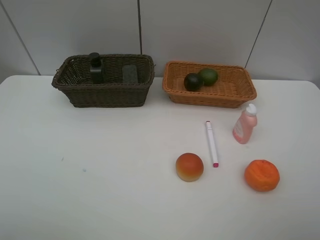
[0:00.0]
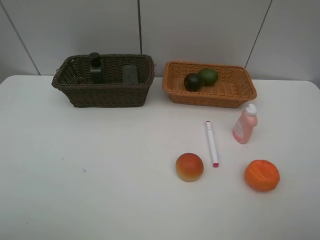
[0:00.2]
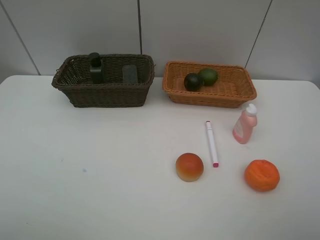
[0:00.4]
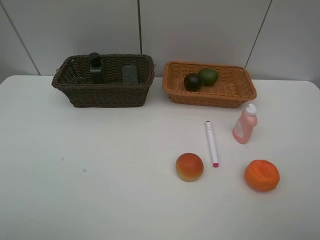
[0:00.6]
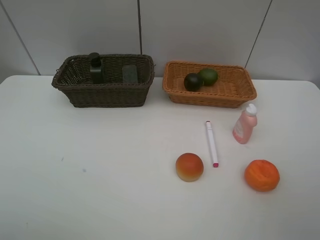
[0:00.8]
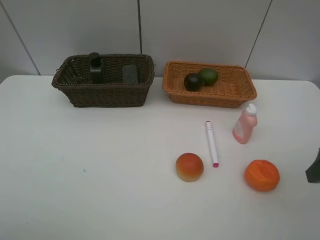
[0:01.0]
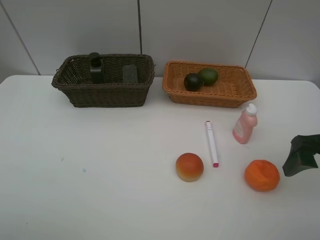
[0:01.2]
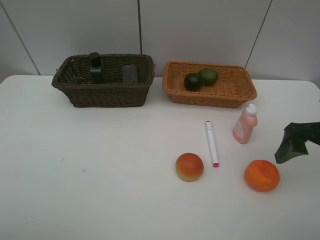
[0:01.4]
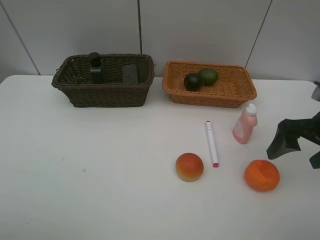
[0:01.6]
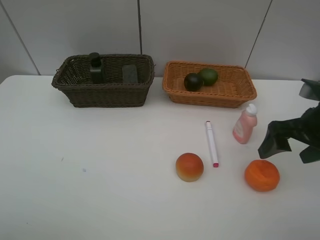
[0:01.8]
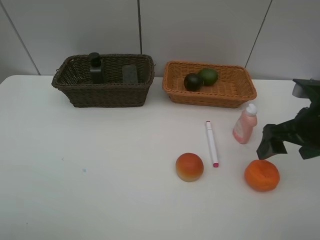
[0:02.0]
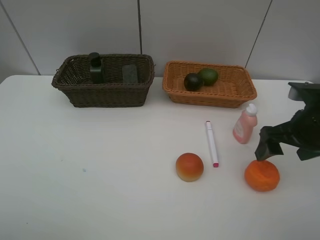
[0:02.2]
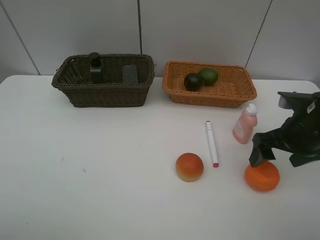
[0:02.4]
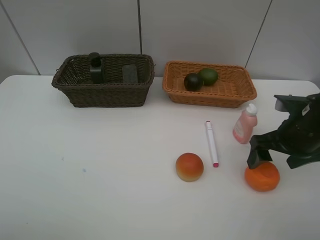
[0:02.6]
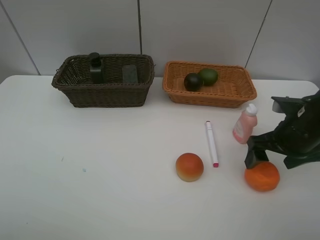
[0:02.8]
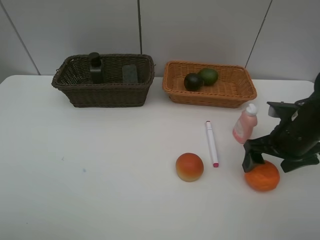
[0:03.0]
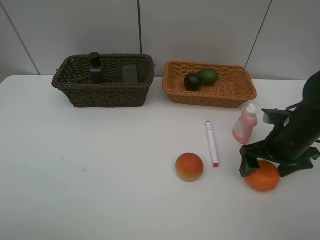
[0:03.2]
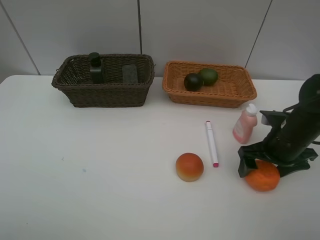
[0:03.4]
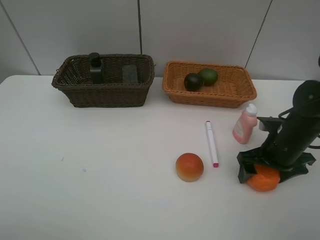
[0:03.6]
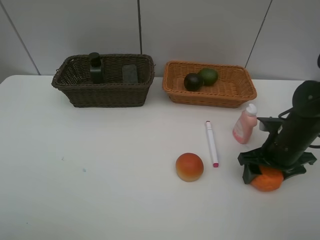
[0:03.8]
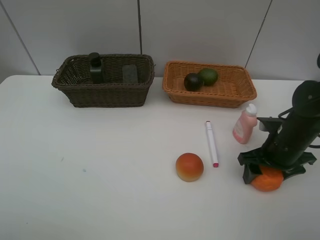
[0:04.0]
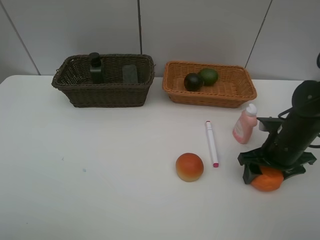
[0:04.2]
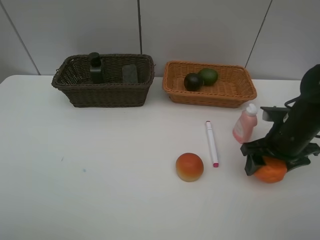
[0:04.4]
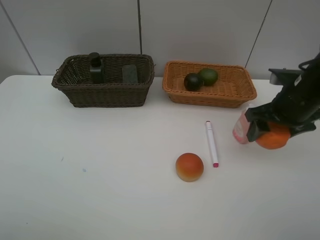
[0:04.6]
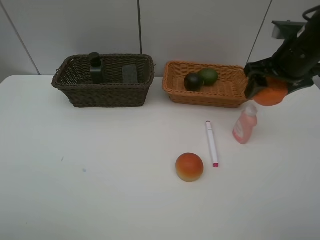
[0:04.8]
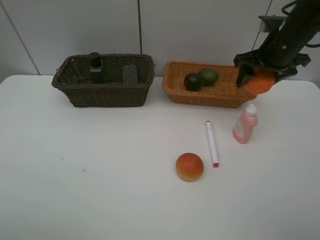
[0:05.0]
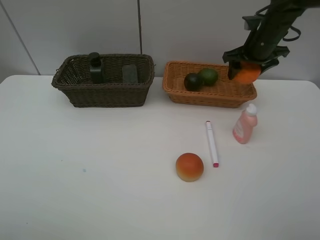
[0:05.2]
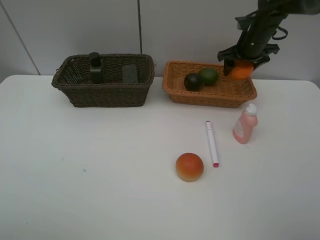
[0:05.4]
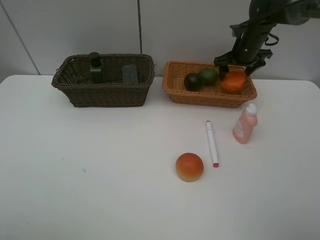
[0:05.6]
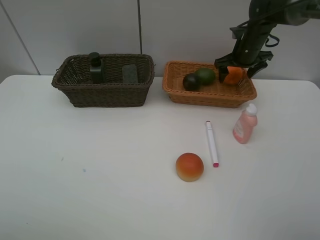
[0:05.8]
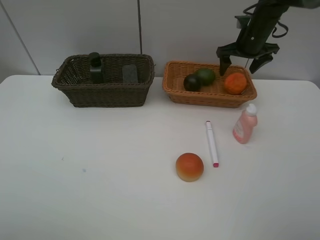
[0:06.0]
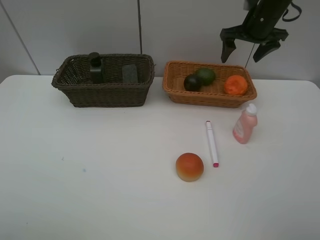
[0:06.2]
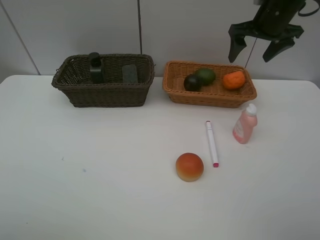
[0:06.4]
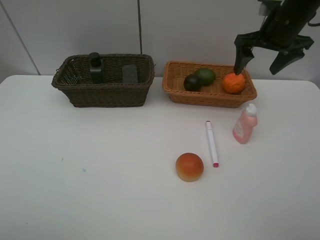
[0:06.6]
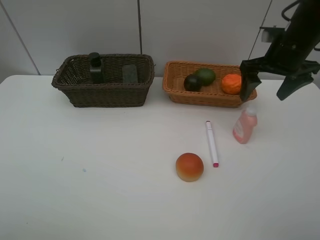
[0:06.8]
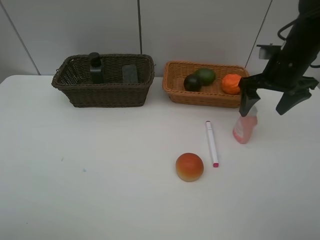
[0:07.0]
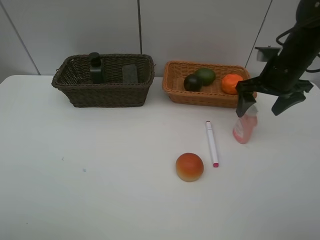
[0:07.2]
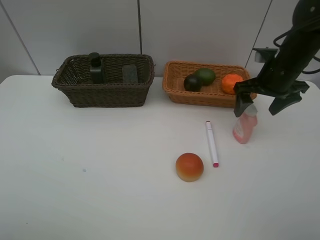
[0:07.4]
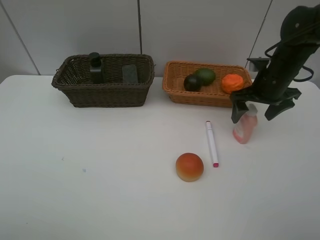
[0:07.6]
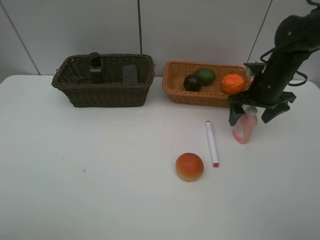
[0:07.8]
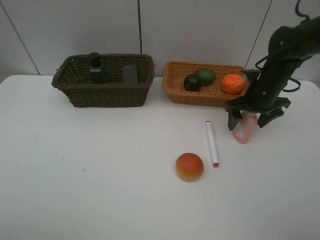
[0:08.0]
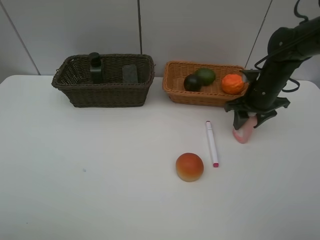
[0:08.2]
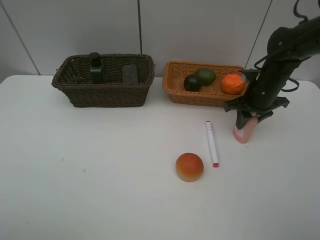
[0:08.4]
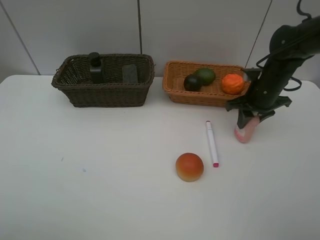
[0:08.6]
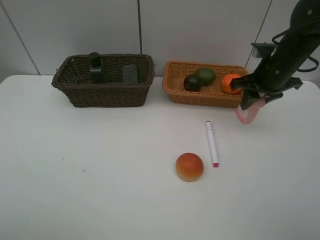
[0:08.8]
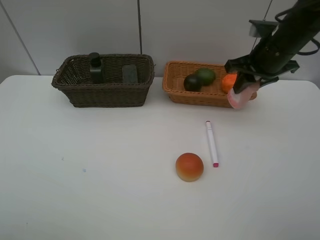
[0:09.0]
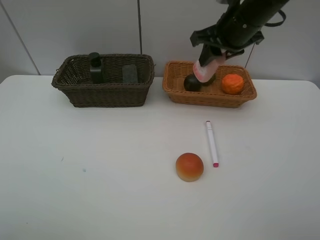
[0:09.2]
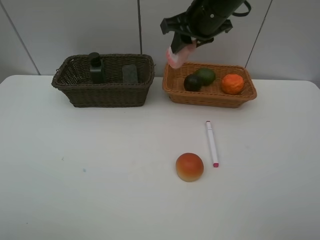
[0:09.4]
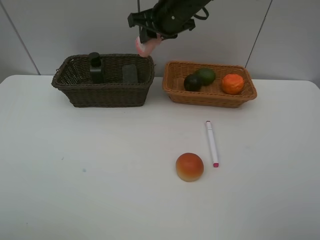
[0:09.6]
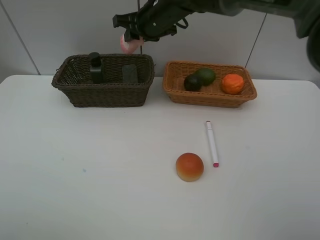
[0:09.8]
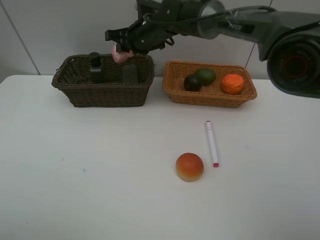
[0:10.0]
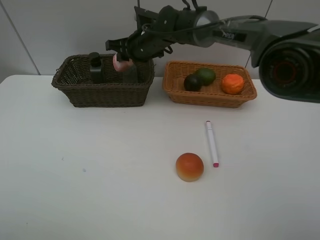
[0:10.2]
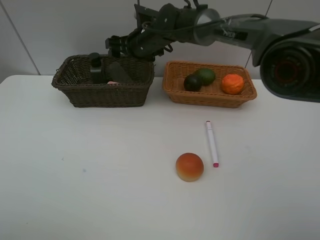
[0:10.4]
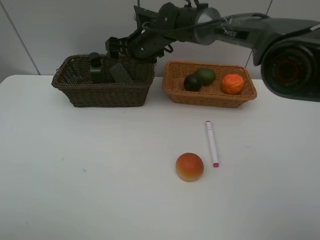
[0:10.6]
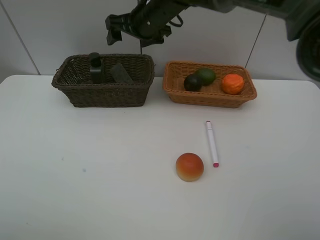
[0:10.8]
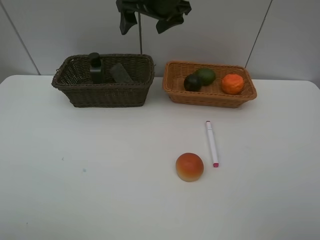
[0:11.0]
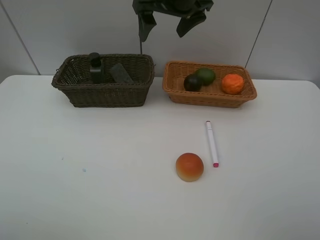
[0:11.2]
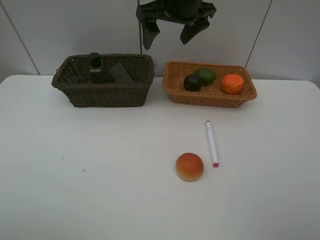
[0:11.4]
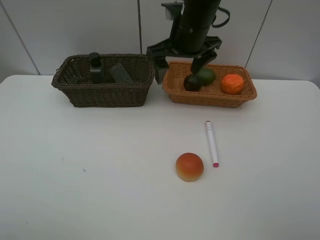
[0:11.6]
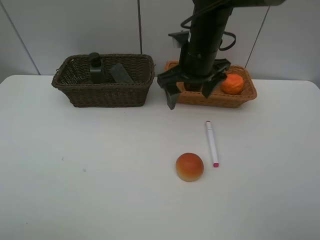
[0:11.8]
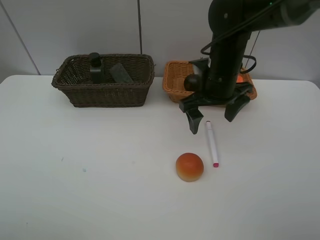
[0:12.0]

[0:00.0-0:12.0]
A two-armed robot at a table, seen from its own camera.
Task of the whole recording: Place multiple objects separately in different baskets.
Step, 0.0 to 4.2 s: Pick up the orange with right gripper.
Step, 4.4 to 5.8 s: Place the orange in the light basket with right gripper.
Step, 6.0 to 8.6 s: Pick up the laundry detergent with right gripper.
Step, 8.8 to 10.4 s: Place the laundry detergent in the dark basket with right gripper.
0.0 to 1.6 s: The right gripper heads forward, covering about 20 cm.
1.6 to 3.0 s: The right gripper shifts some 5 cm downward.
3.0 to 4.4 s: There are only small adjustments of the grippers.
4.4 to 6.0 s: The right gripper is displaced forward by some 20 cm.
6.0 to 7.6 s: The right gripper travels backward and downward by some 15 cm.
7.6 to 9.0 s: The right gripper moves upward, some 5 cm, and closes up.
9.0 to 10.4 s: The right gripper travels to the left and forward by some 25 cm, and opens.
10.4 to 12.0 s: The right gripper goes some 20 cm to the right and backward.

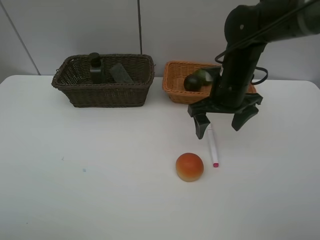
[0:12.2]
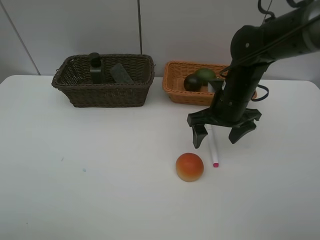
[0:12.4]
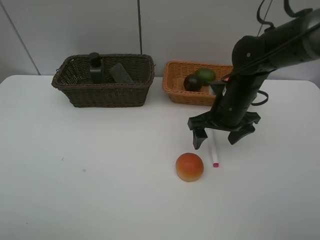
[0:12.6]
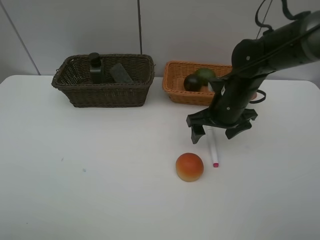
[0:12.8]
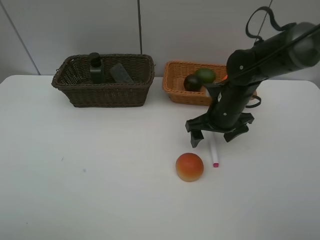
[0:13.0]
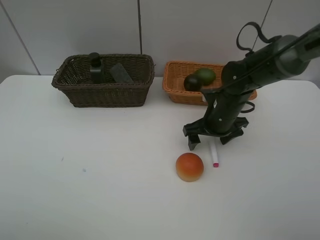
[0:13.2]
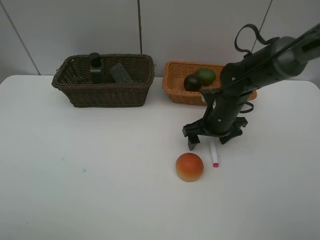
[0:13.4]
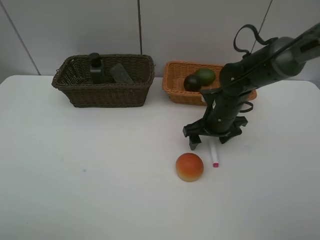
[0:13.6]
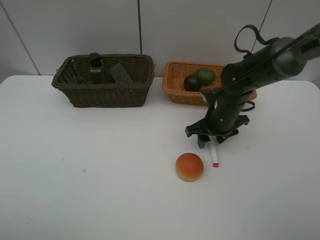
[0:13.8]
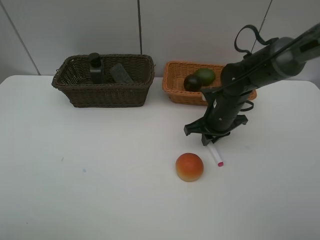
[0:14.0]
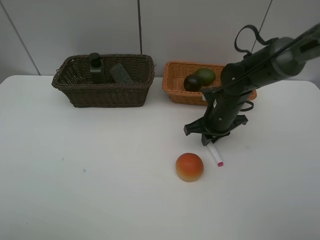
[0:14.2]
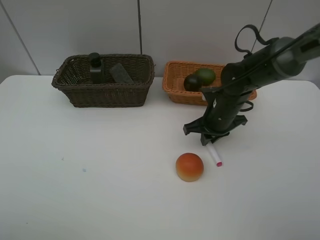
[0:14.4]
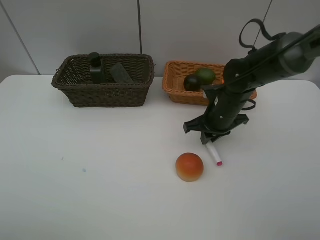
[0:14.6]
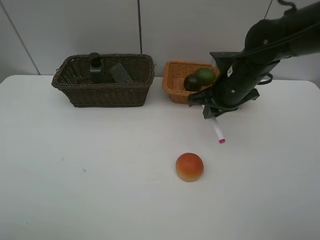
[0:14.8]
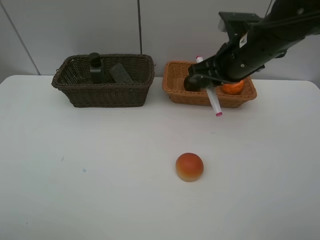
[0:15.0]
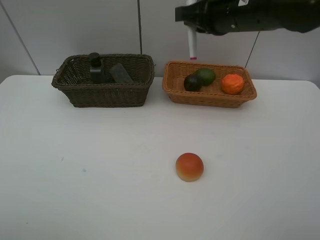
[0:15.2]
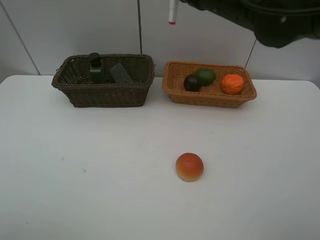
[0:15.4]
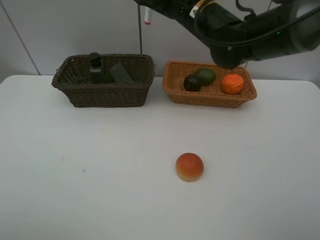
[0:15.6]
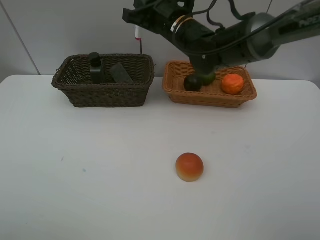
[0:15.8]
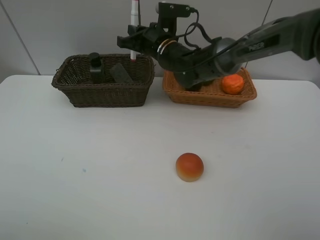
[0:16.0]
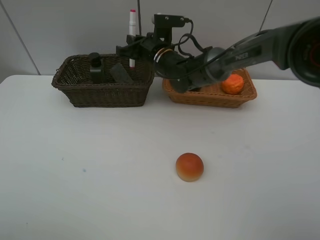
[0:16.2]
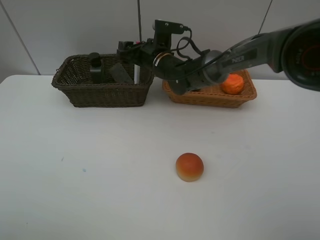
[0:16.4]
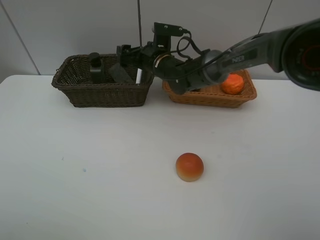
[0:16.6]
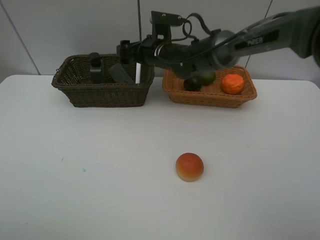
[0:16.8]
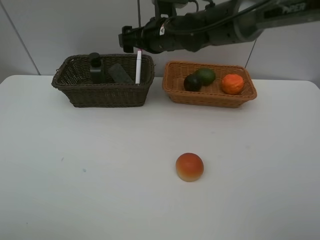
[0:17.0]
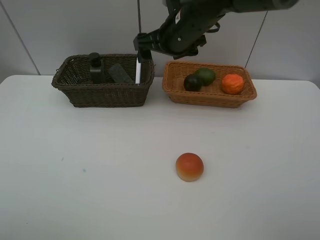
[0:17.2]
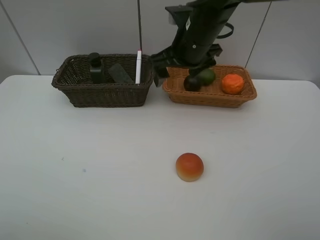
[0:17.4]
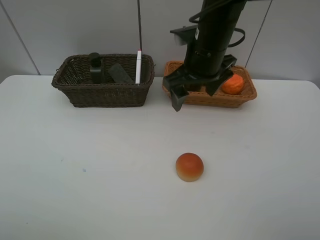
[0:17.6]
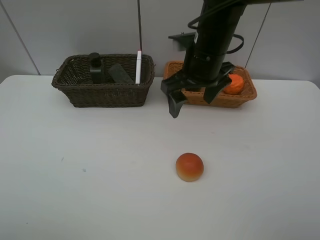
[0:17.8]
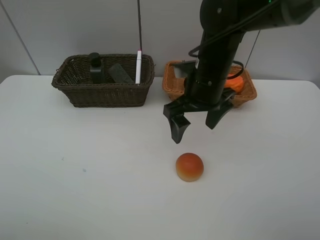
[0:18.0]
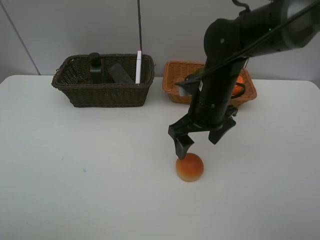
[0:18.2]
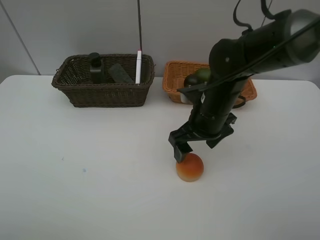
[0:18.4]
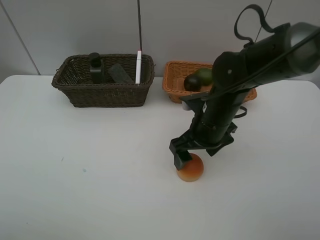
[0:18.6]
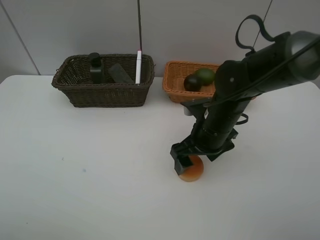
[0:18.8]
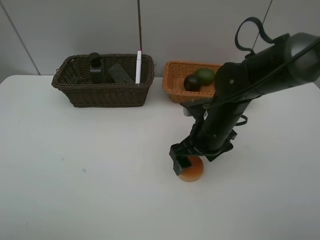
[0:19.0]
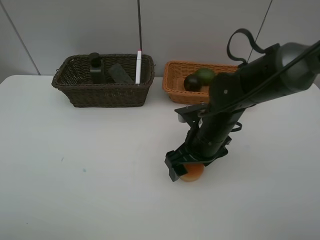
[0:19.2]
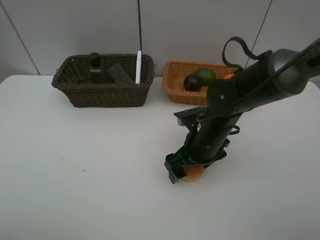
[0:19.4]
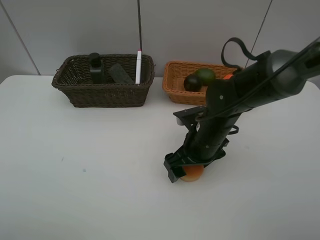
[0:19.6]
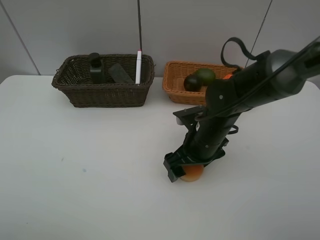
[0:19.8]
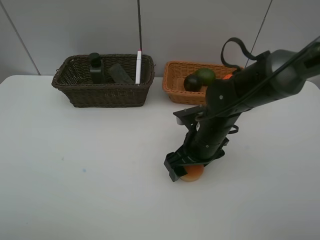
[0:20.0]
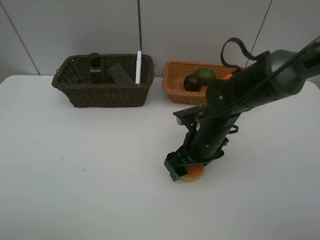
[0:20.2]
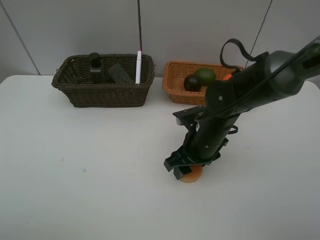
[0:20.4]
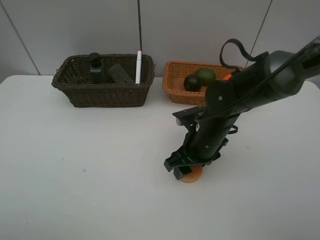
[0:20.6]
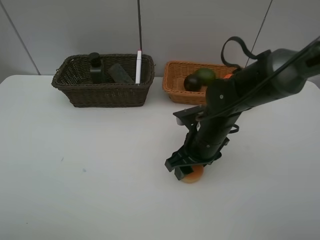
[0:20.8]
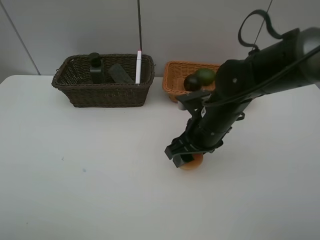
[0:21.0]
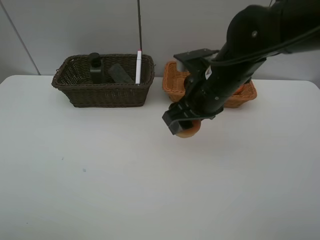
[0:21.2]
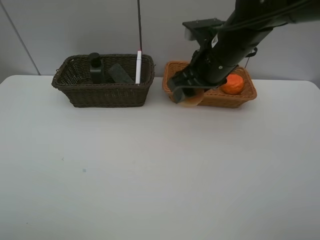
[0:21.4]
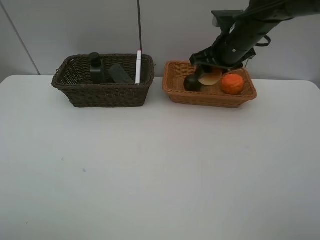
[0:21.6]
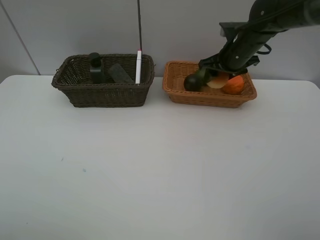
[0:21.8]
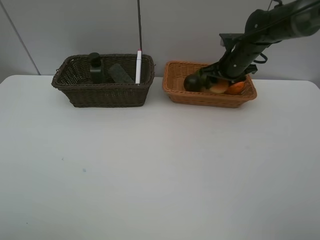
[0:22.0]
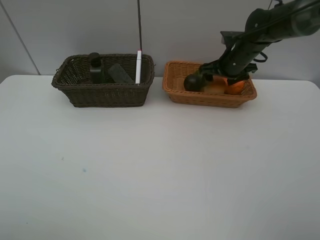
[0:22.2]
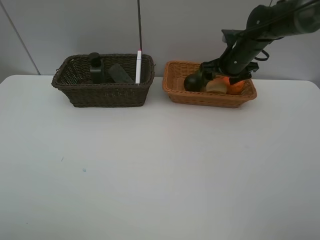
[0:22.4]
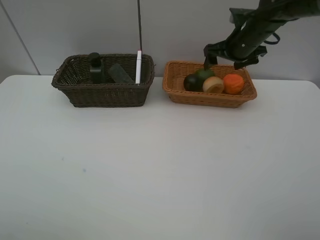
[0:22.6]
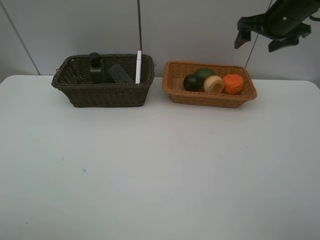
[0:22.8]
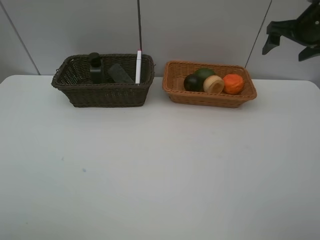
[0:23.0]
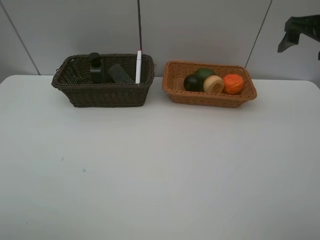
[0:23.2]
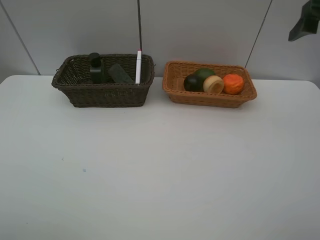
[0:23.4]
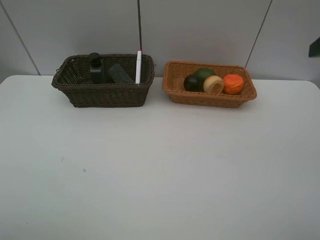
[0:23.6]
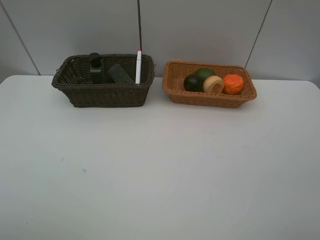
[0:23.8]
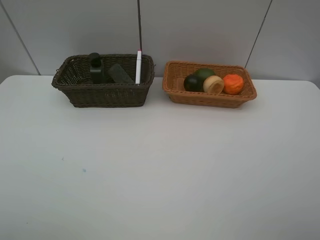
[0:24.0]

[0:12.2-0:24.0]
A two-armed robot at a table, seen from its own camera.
Task of the whole recording: Place multiple objects separately in different baskets.
Step, 12.2 to 14.6 s: Pick up the red marker with right gripper.
Step, 14.8 to 17.0 s: Place the red marker in the dark basket with right gripper.
Step, 17.2 to 21.0 s: Pick up egg yolk pastry with right gripper.
Step, 21.2 to 22.4 s: Place the egg yolk pastry in the light basket with right gripper.
12.2 to 13.6 s: The right gripper moves downward, about 10 cm.
13.6 to 15.2 s: The right gripper is displaced upward by roughly 20 cm, and closes up.
15.2 to 16.6 s: The right gripper moves downward, to the left and forward, approximately 25 cm, and opens.
16.6 to 18.2 s: The right gripper shifts roughly 20 cm backward and to the right.
18.2 to 19.6 s: The right gripper is displaced downward by approximately 5 cm.
19.6 to 21.0 s: The right gripper changes place by some 5 cm, and closes its fingers.
21.0 to 22.6 s: The right gripper moves forward, to the right and upward, about 25 cm, and opens its fingers.
22.6 to 24.0 s: The right gripper travels backward by about 40 cm.
